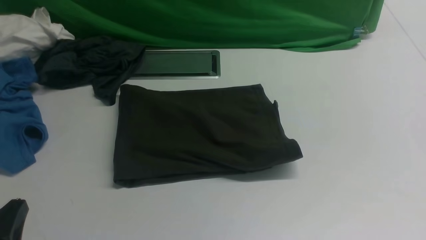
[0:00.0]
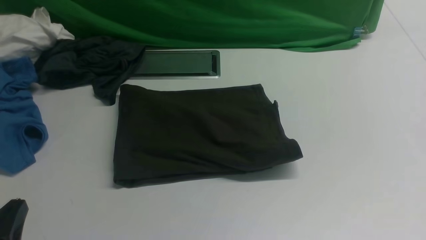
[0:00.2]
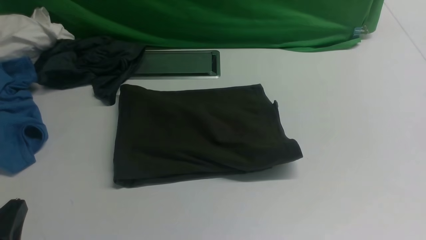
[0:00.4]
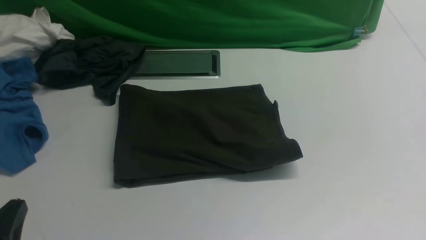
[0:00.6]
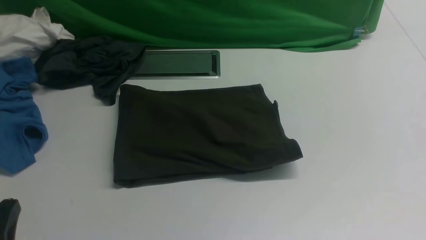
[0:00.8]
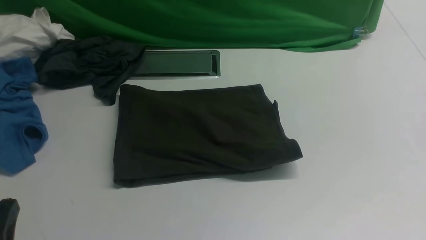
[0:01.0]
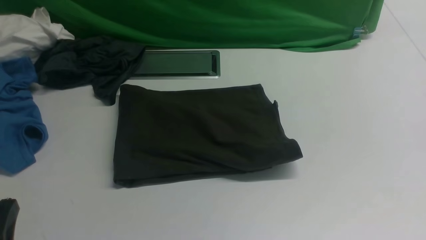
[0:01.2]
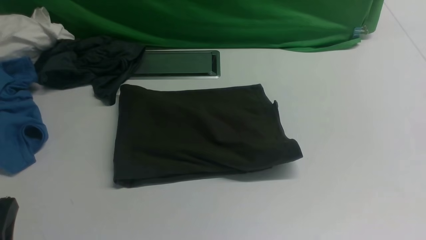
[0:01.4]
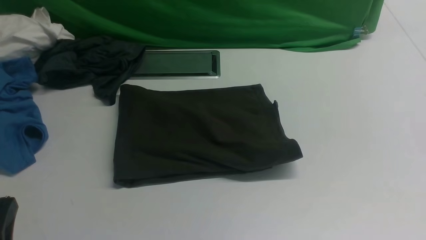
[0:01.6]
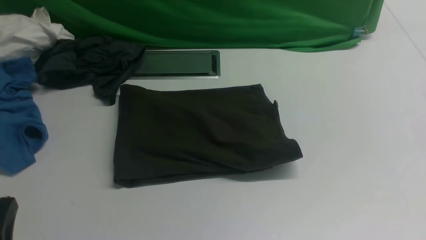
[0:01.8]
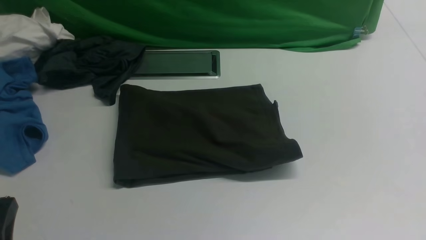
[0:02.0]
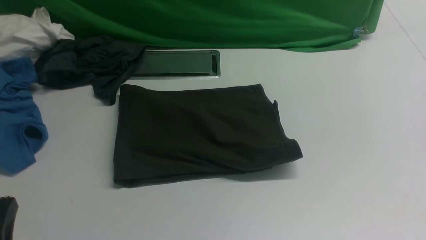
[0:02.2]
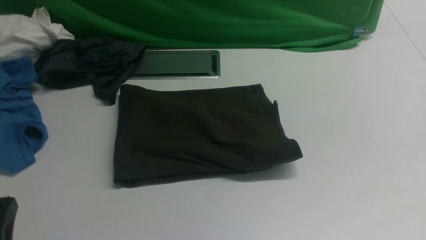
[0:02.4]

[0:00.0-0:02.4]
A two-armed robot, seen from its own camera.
0:00.0 to 0:02.4: Both grippers stay about where they are.
